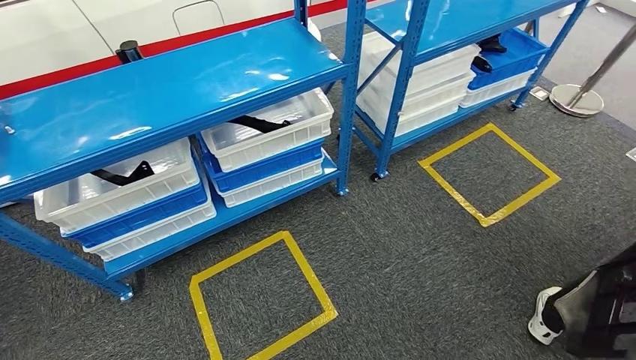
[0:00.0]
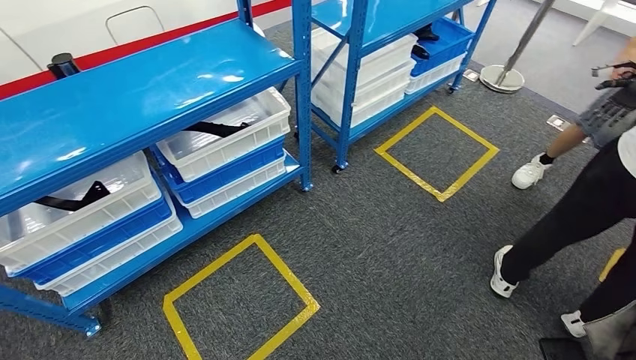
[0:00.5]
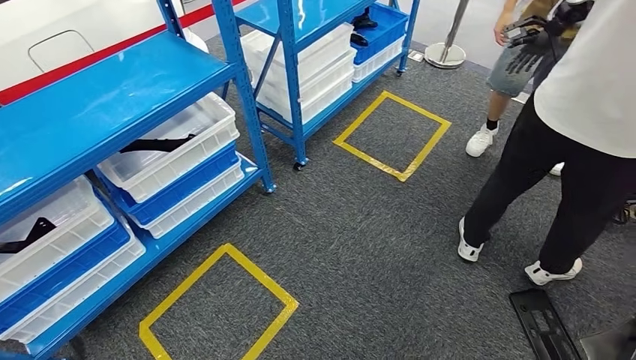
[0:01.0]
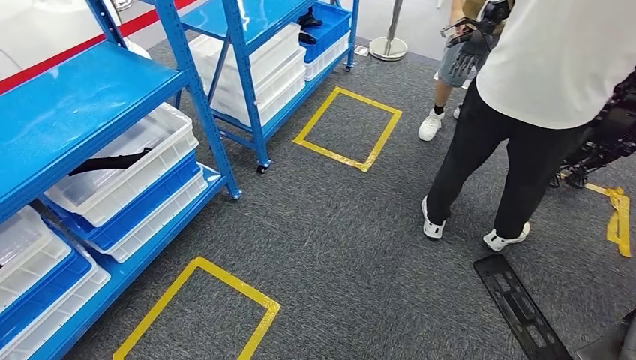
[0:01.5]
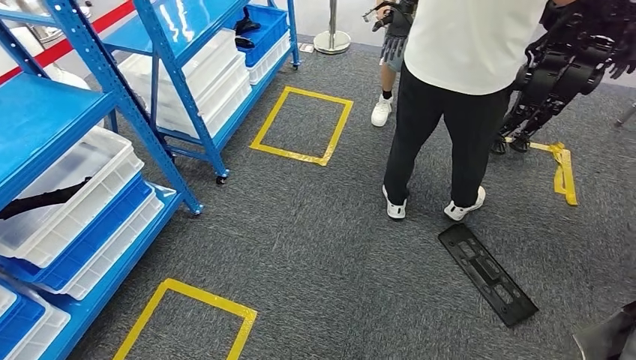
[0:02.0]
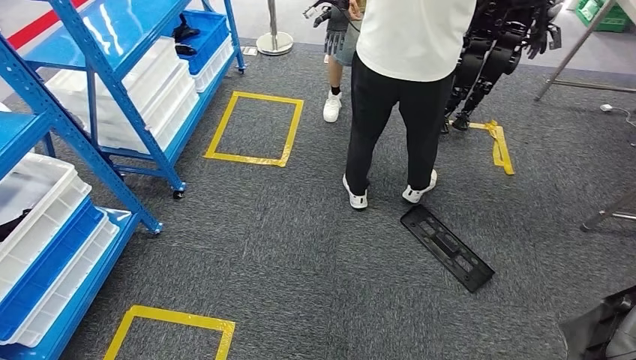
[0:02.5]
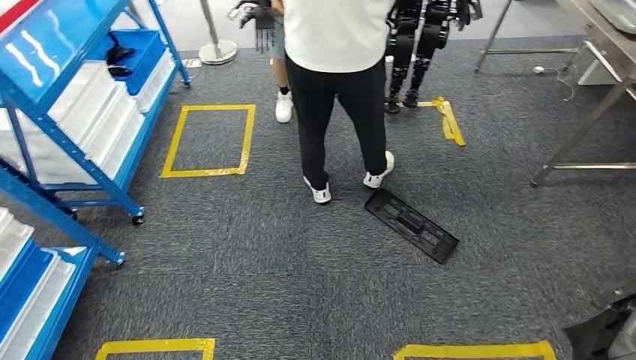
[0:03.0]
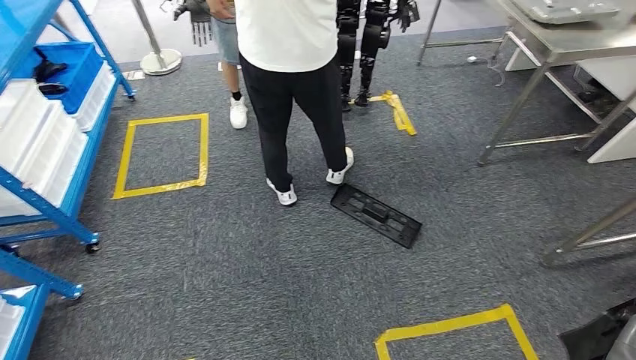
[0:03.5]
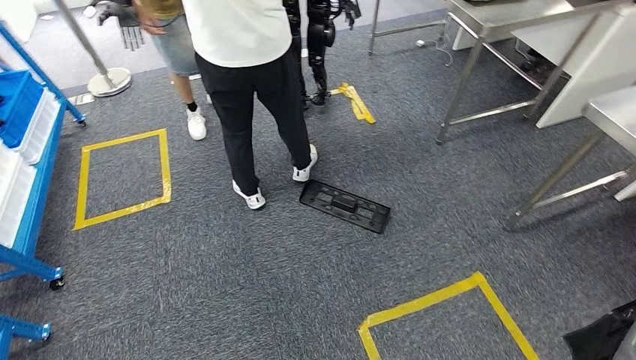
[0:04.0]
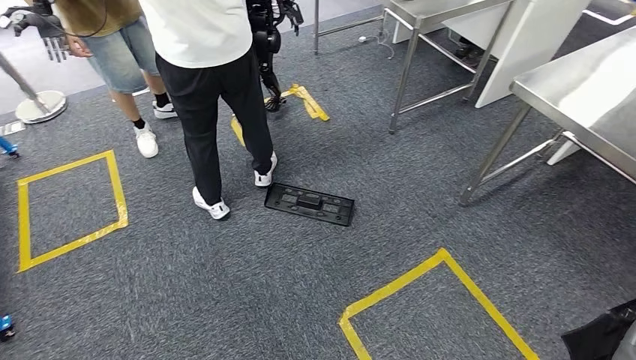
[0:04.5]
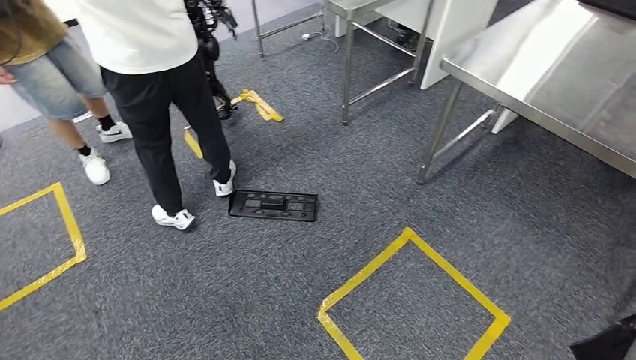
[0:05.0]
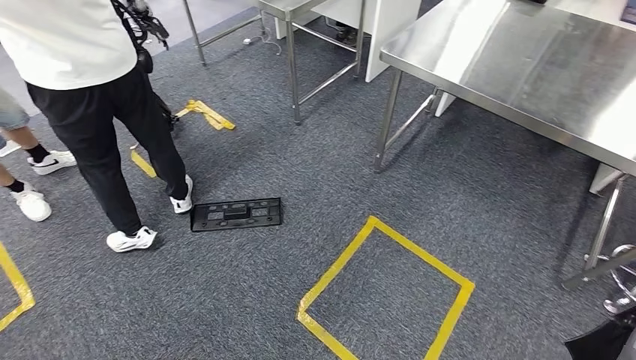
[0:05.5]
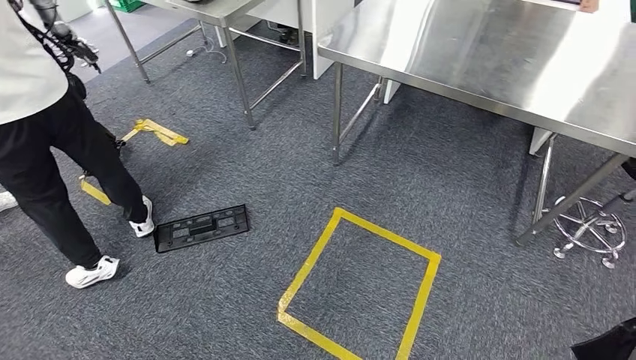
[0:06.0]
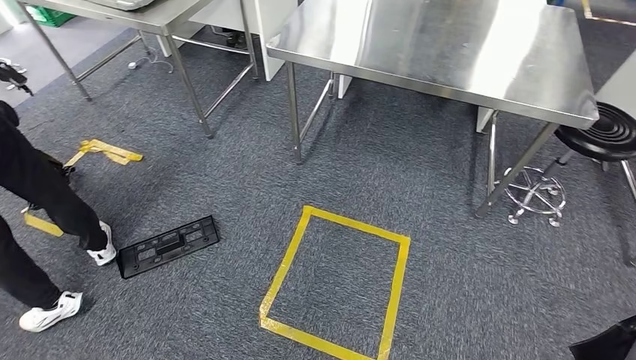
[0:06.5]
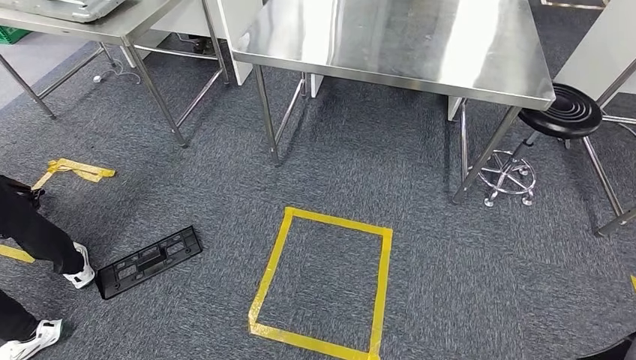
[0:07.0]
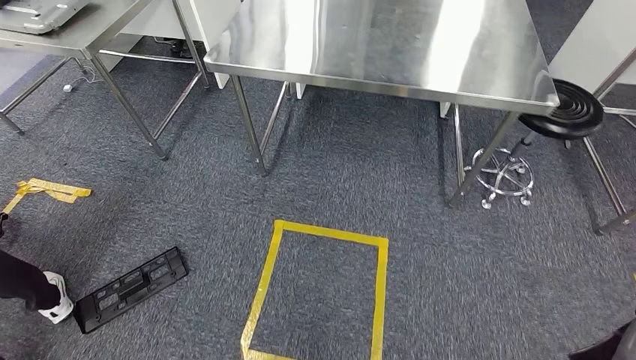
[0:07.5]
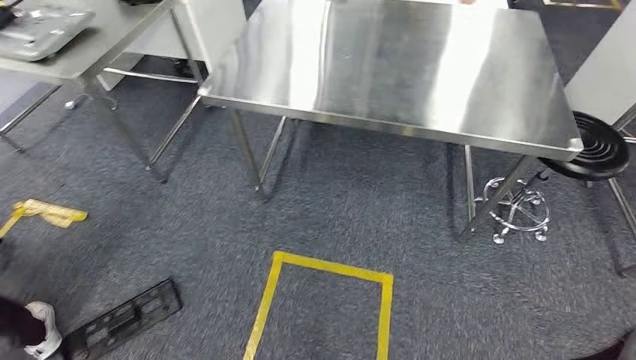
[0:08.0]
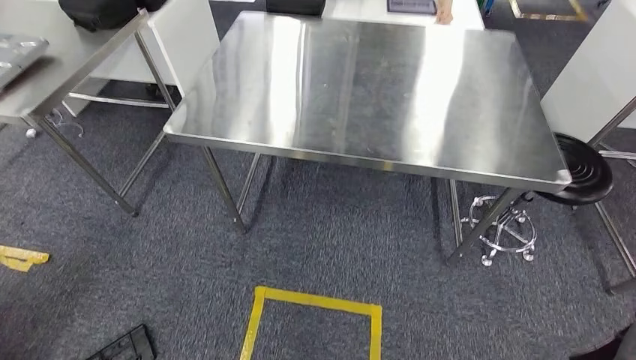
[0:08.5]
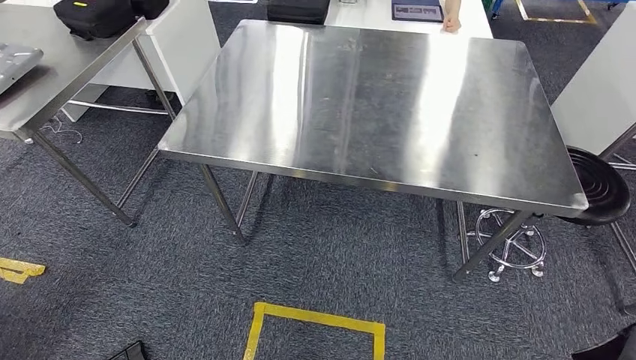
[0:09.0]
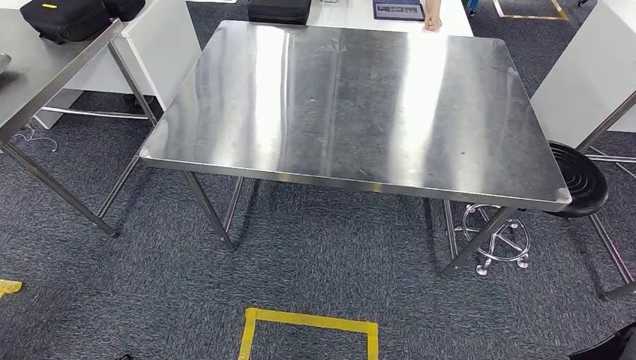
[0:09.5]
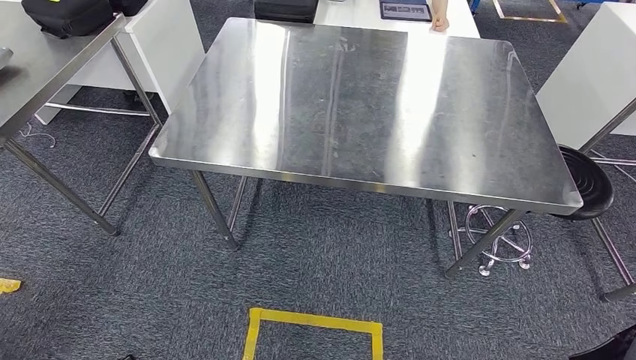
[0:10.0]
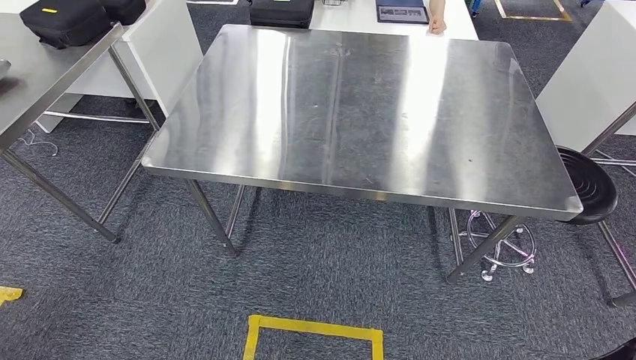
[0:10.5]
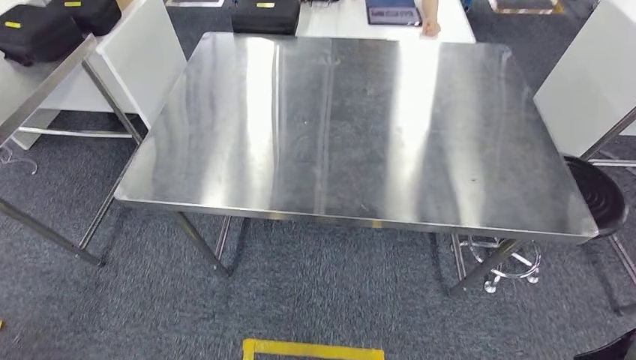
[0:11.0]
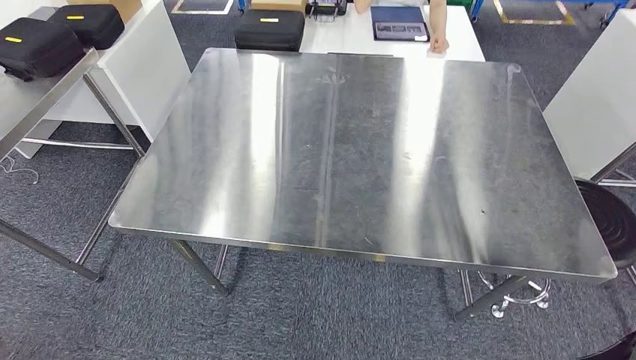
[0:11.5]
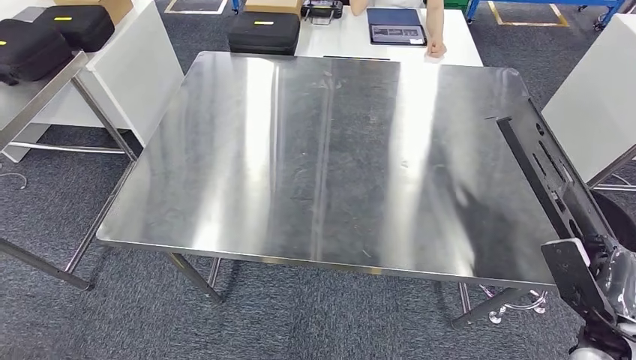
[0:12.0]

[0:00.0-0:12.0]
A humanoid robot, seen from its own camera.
Step, 0:00.0 to 0:11.0: Move the large material to the workbench.

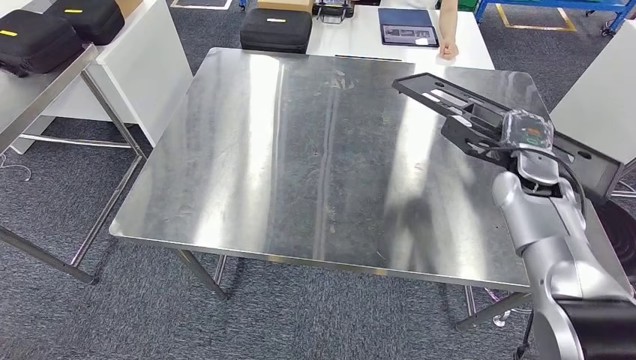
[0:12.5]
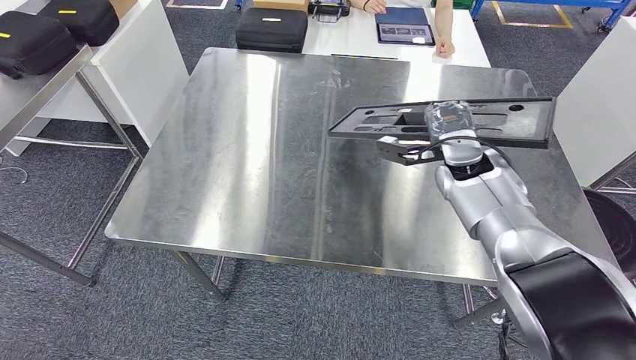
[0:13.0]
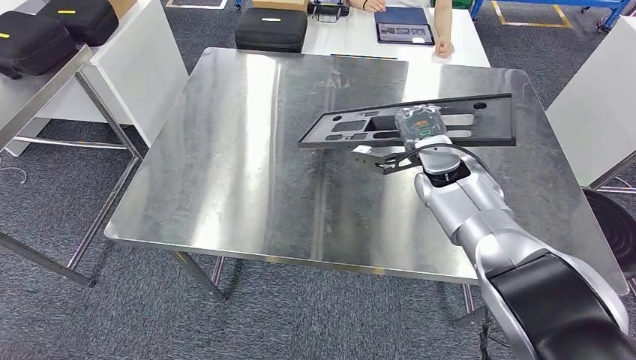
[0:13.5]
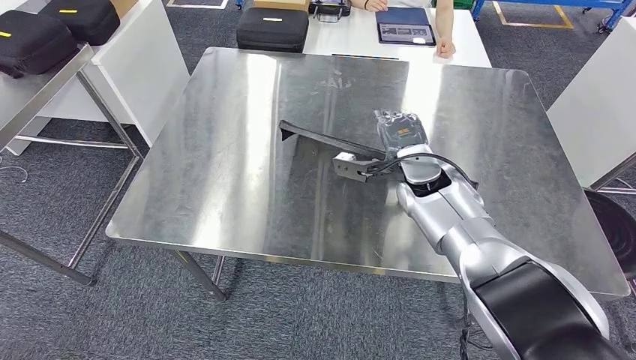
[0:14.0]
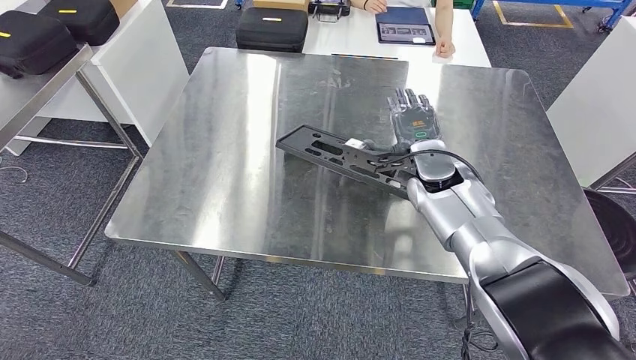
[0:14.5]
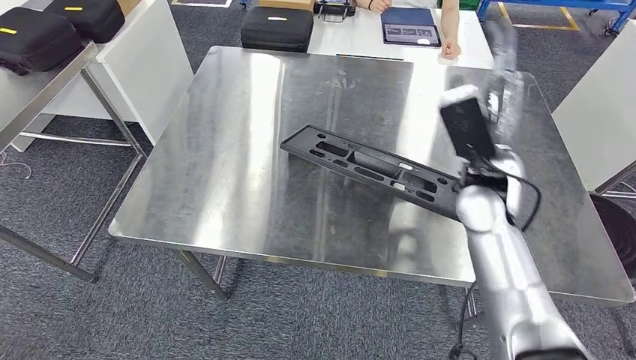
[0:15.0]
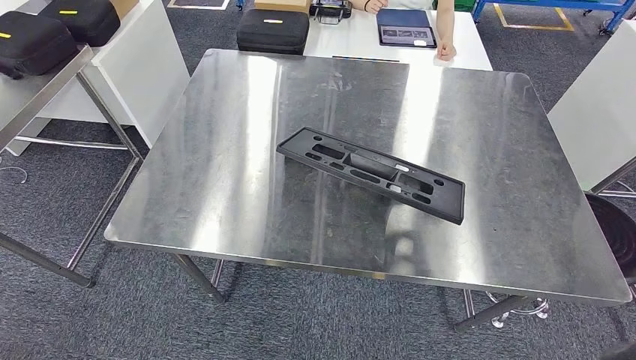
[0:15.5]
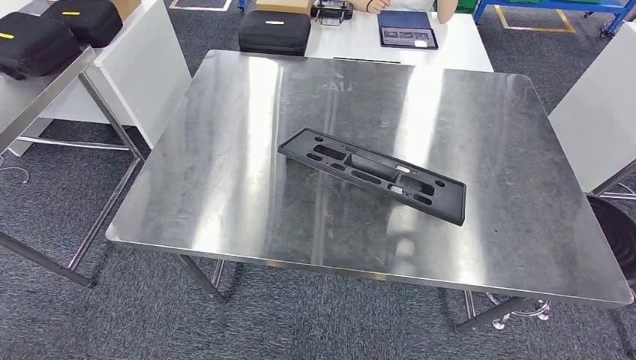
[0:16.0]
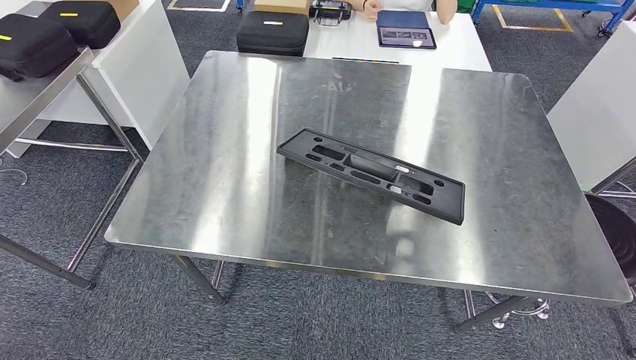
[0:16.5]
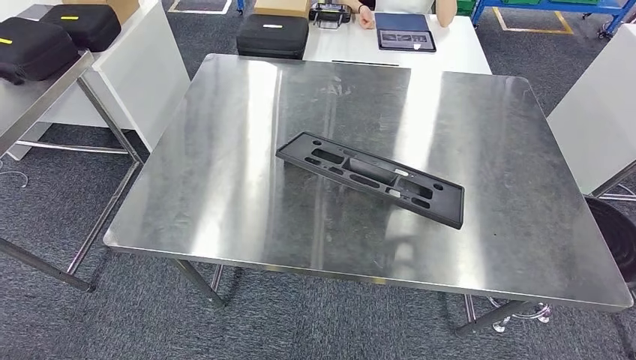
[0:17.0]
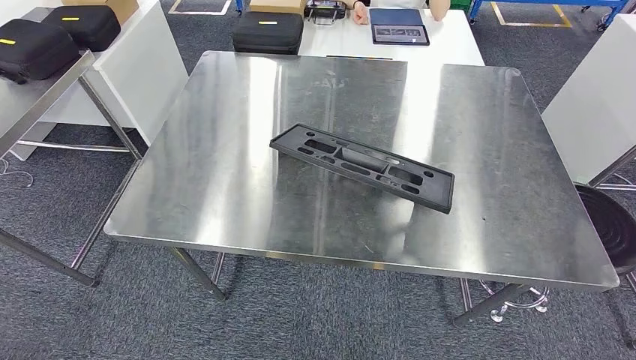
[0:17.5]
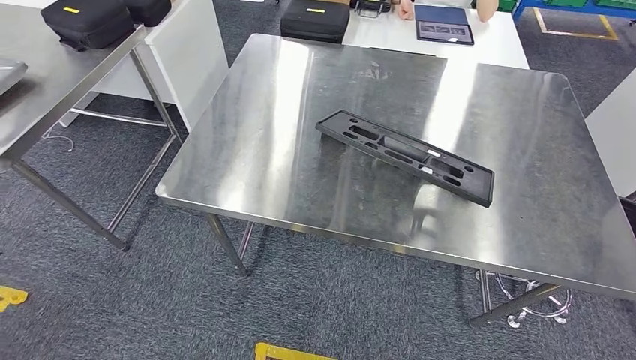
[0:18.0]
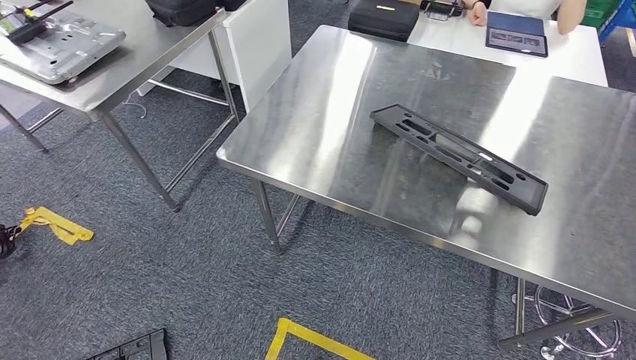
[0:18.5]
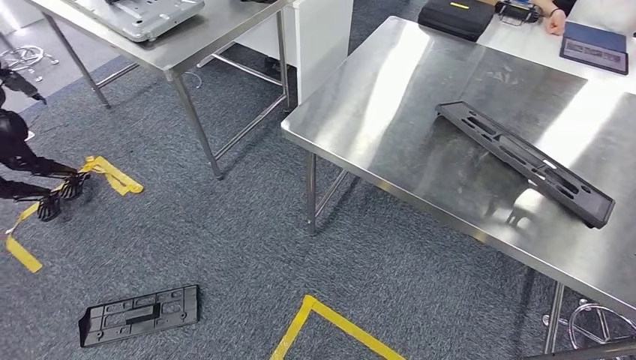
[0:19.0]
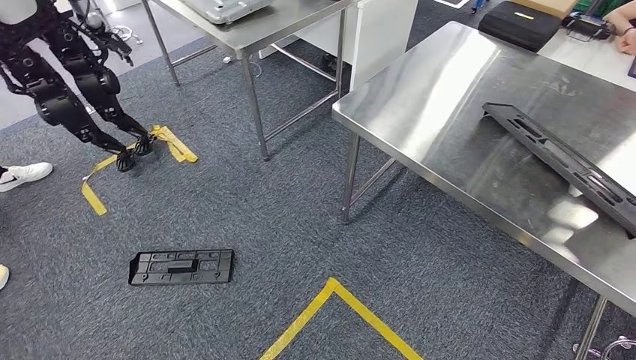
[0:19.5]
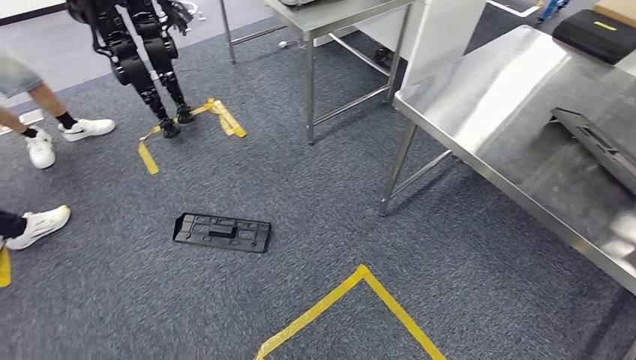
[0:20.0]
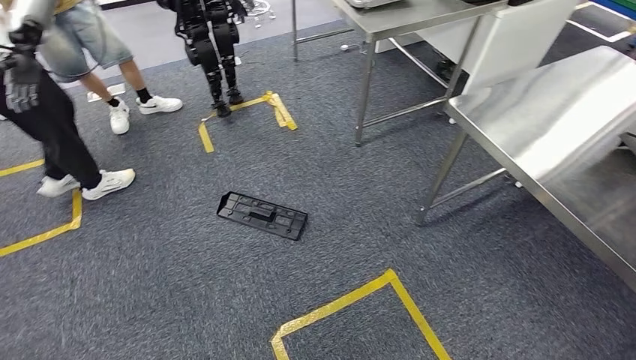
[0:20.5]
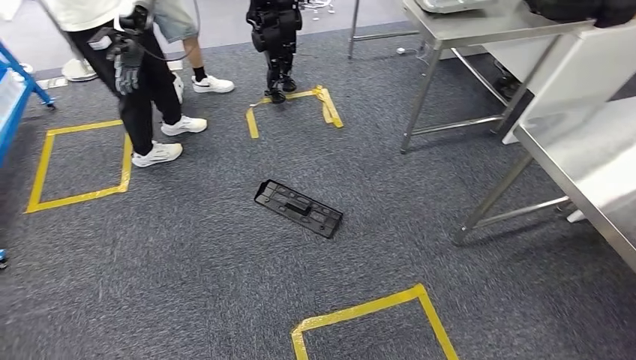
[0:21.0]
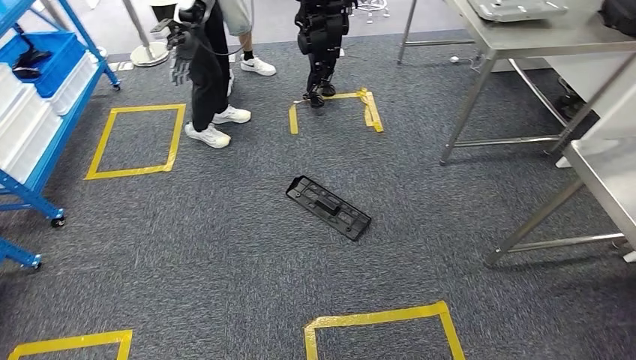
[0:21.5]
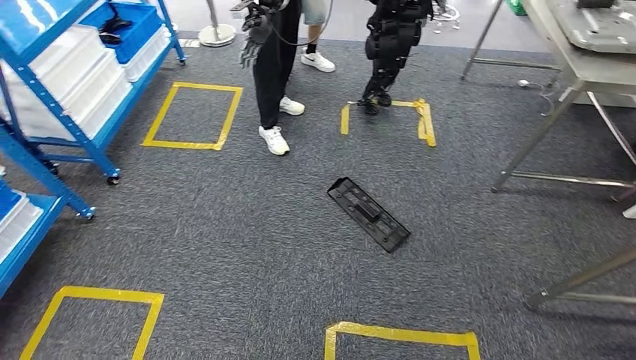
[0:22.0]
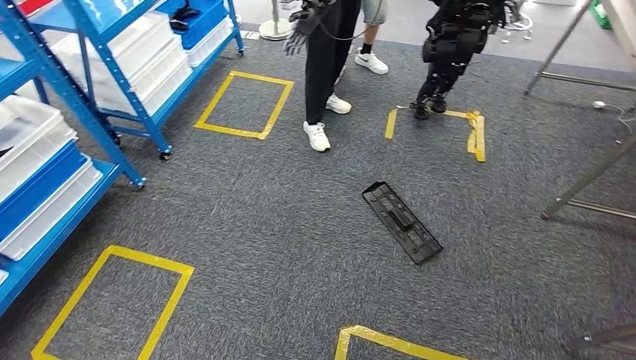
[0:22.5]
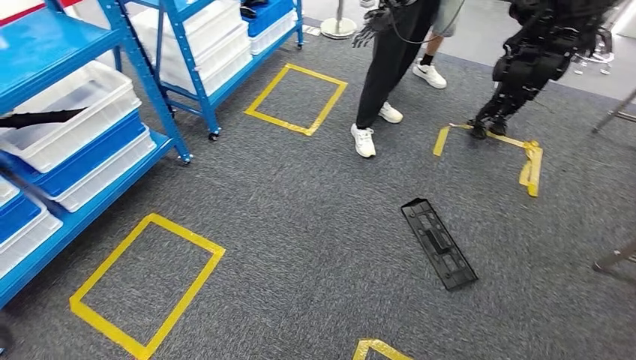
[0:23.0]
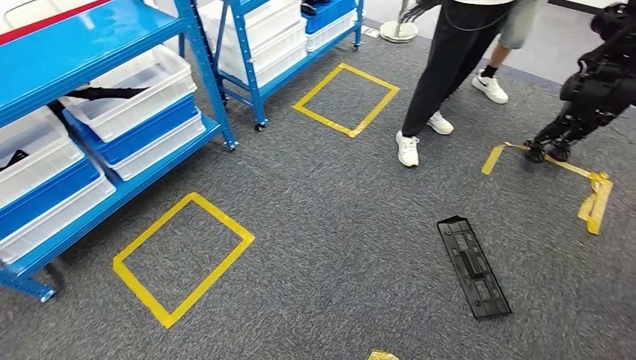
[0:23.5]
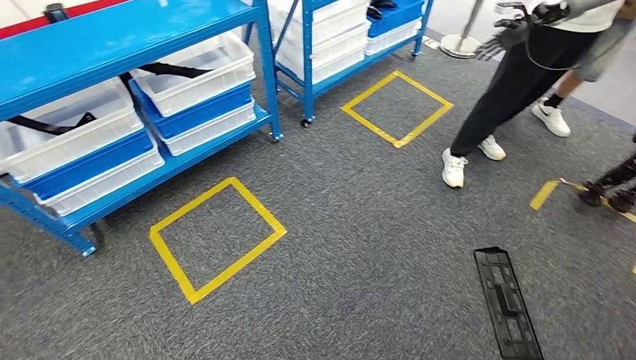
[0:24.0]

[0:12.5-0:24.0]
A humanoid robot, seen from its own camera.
Step, 0:12.5 to 0:16.5: Insert the large material into the corresponding slot on the workbench.
0:14.5 to 0:16.5: The right hand goes about 60 cm backward and downward.
